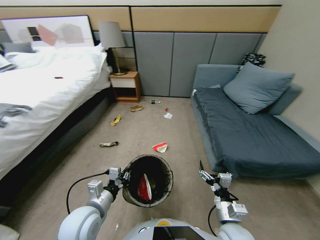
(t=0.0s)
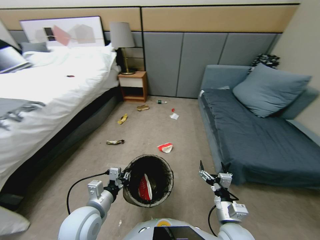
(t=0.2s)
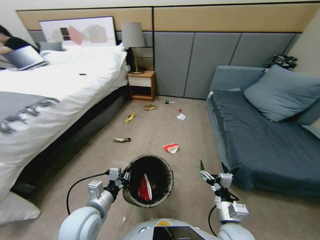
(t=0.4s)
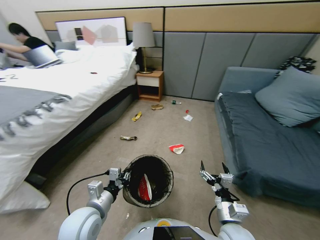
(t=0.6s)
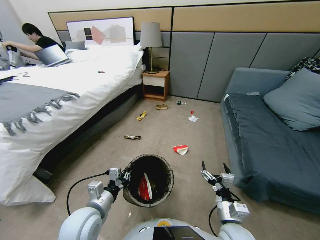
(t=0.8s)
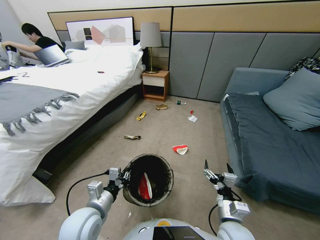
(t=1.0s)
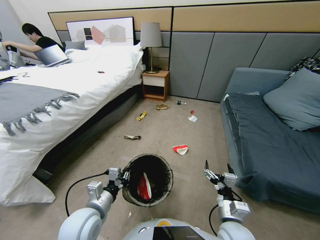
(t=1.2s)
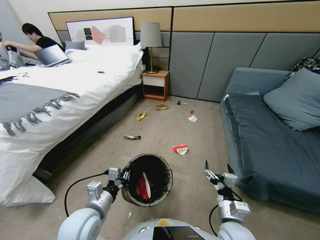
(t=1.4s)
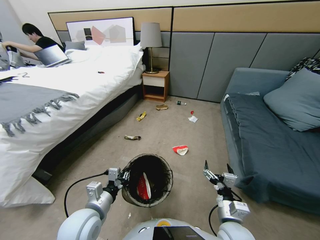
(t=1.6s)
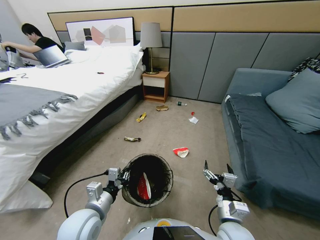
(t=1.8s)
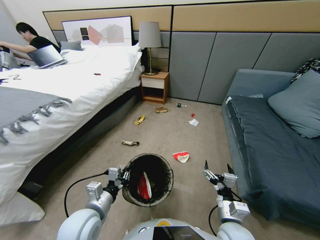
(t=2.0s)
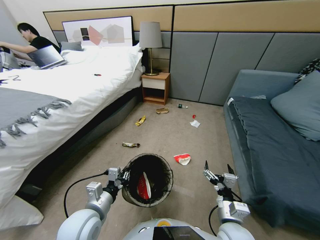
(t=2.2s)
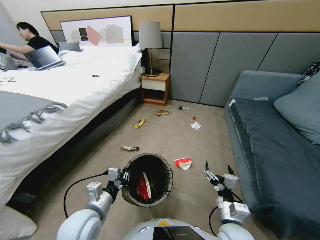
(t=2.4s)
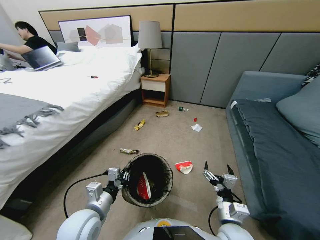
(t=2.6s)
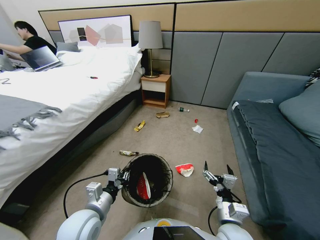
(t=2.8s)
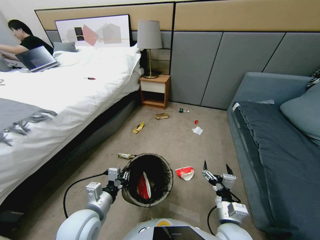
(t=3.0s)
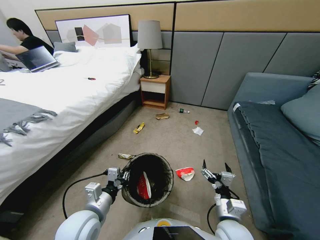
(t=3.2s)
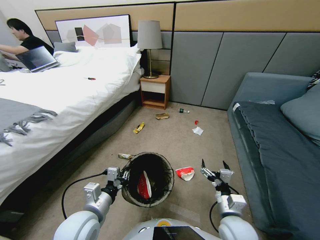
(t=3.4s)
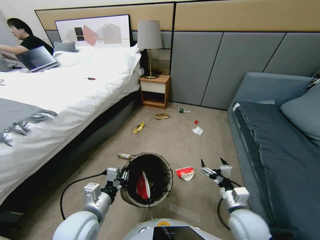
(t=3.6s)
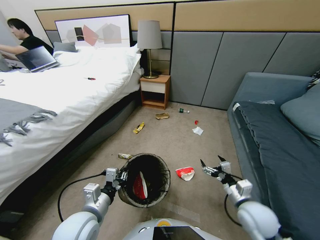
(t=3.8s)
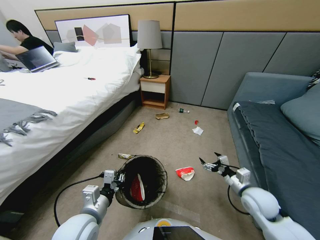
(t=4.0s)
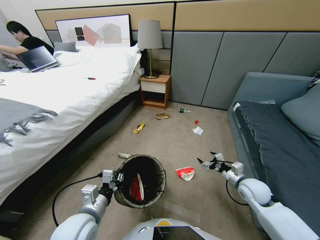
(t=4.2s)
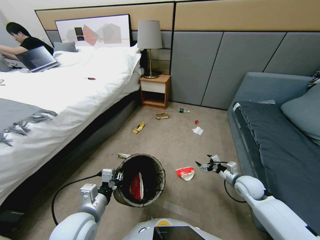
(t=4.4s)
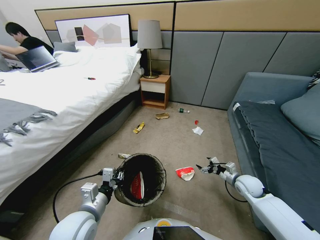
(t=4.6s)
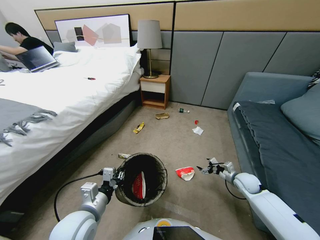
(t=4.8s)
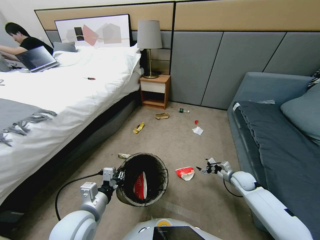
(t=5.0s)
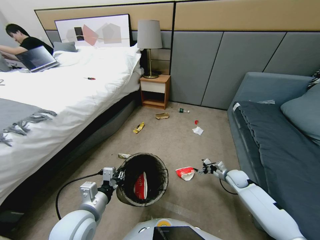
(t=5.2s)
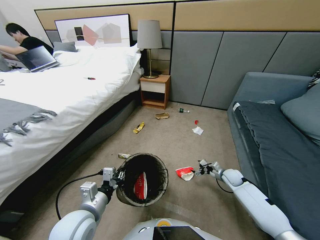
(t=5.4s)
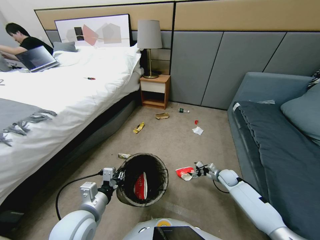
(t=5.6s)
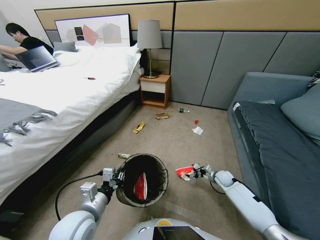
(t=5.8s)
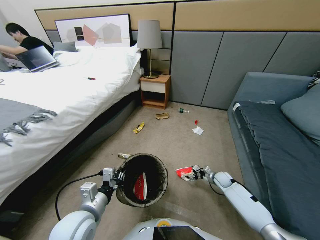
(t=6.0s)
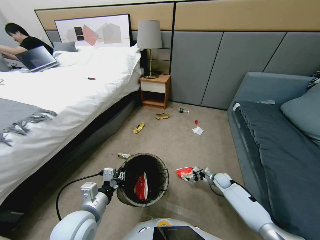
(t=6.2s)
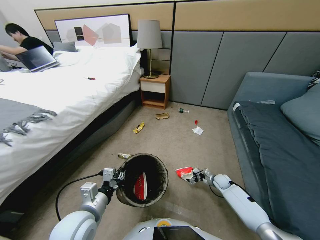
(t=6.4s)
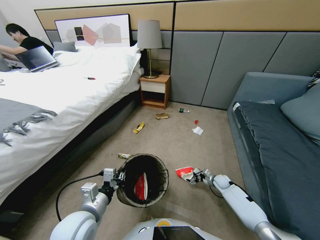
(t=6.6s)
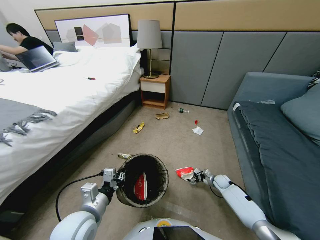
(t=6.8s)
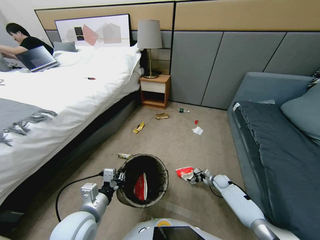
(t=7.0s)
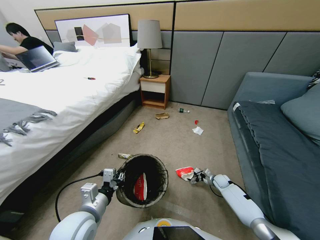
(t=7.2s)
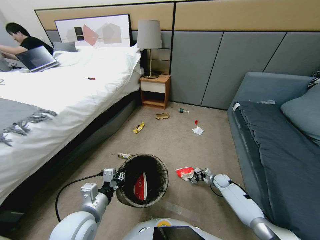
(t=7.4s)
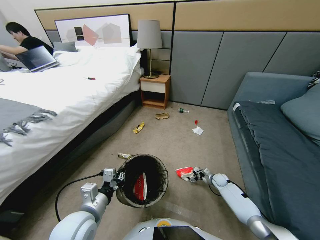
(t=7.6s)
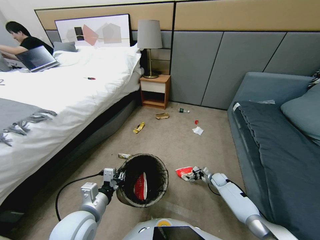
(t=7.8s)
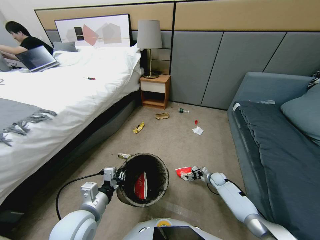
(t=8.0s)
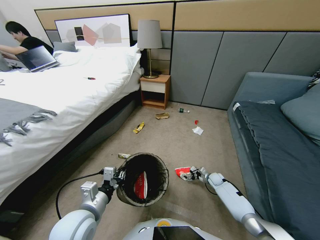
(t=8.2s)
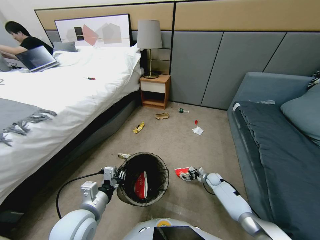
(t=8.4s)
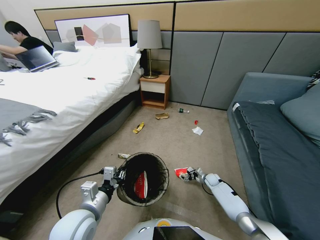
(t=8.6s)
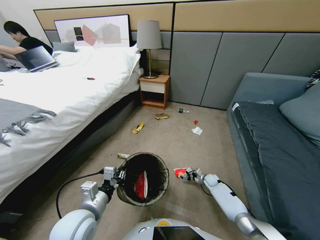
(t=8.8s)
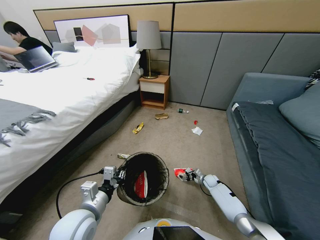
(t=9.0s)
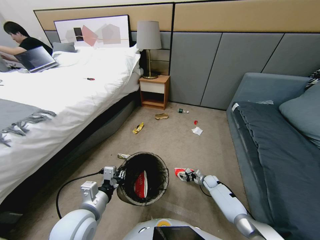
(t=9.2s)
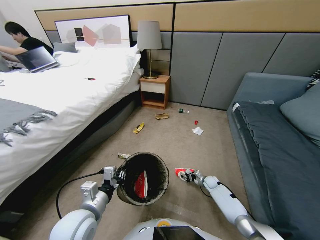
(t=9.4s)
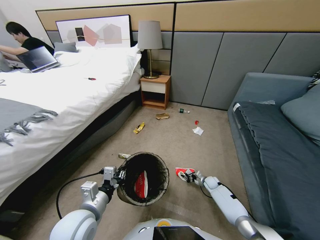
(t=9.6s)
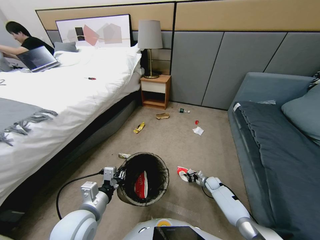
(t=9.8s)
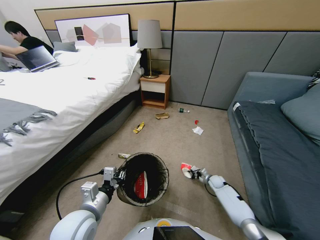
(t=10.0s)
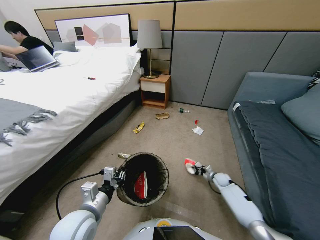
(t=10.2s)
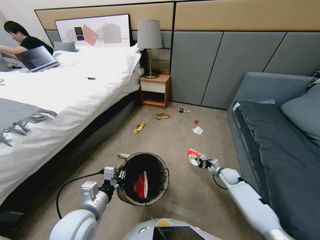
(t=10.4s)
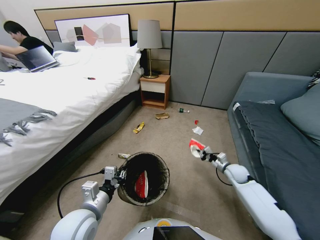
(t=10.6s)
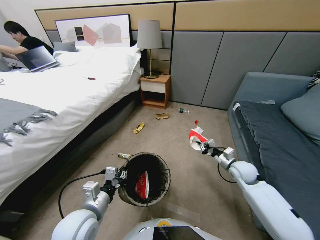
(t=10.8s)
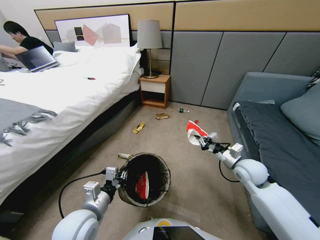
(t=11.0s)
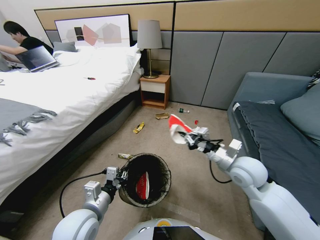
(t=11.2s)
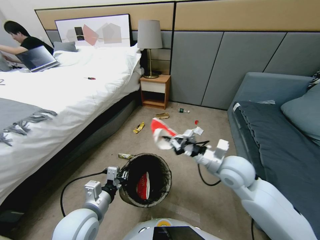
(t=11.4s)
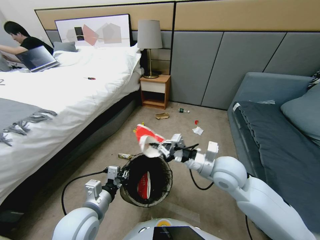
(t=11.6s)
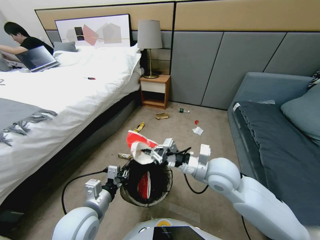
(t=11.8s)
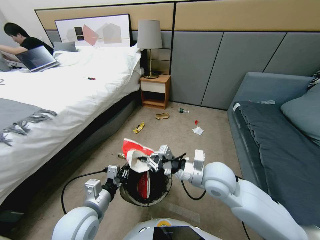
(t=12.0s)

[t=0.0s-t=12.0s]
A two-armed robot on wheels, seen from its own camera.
Task of the whole recording: Pick up the trash bin, then pick up the garbage from the floor and place it into the trash bin.
t=3.0s to t=4.4s: The right gripper shifts about 25 cm to the right and forward.
t=4.4s to t=6.0s: The right gripper heads downward and forward, covering roughly 15 cm.
t=6.0s to t=7.6s: The grippers make only small movements.
t=7.6s to t=9.0s: The right gripper moves some 5 cm, and closes its fingers.
t=9.0s to t=10.4s: The right gripper moves upward, roughly 20 cm, and closes its fingers.
t=10.4s to t=12.0s: The right gripper is displaced to the left, upward and backward by some 30 cm.

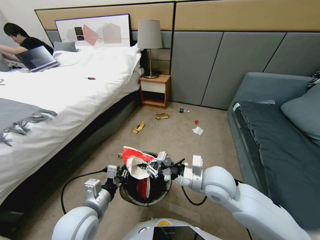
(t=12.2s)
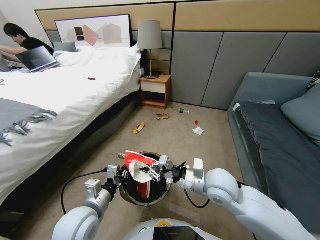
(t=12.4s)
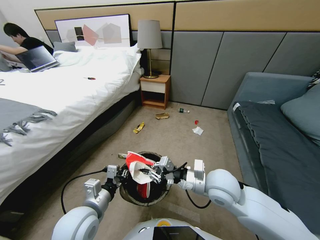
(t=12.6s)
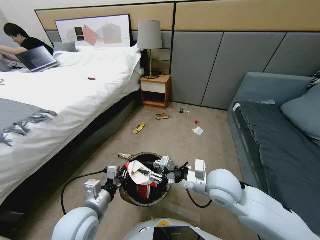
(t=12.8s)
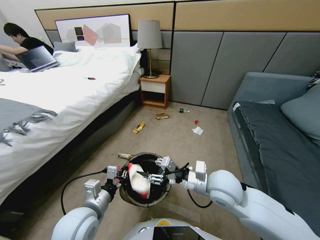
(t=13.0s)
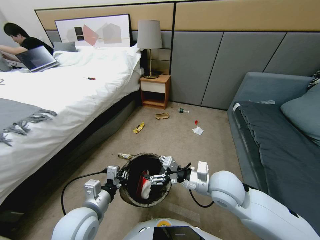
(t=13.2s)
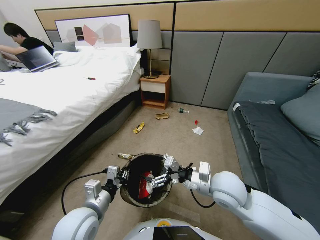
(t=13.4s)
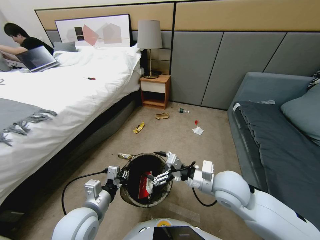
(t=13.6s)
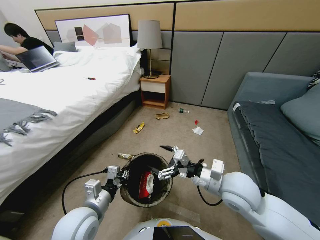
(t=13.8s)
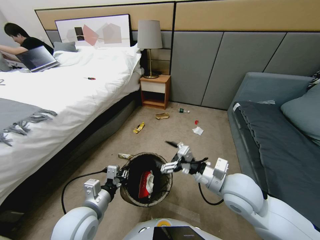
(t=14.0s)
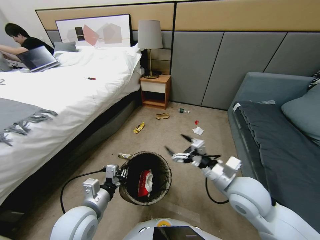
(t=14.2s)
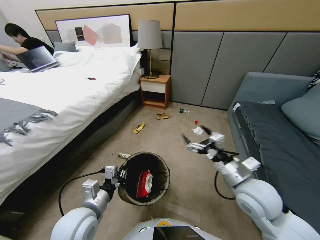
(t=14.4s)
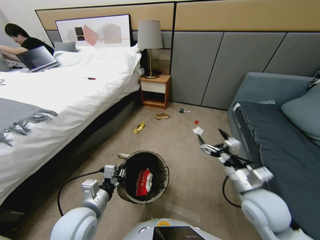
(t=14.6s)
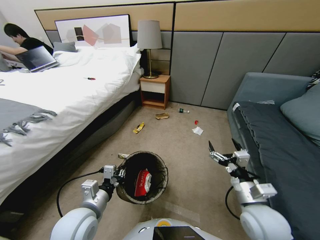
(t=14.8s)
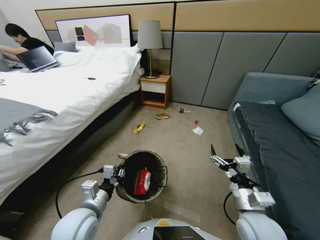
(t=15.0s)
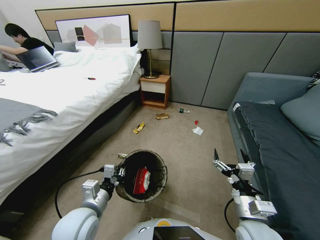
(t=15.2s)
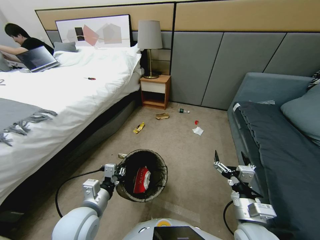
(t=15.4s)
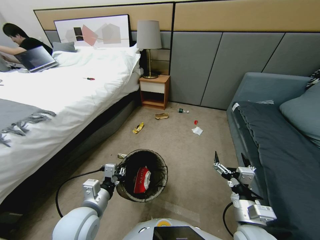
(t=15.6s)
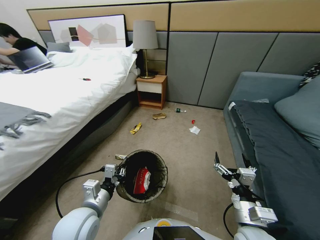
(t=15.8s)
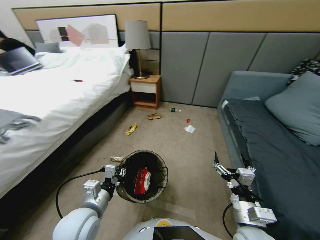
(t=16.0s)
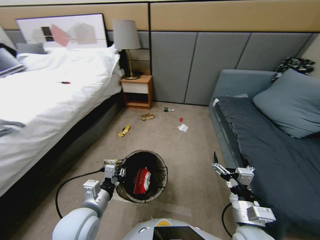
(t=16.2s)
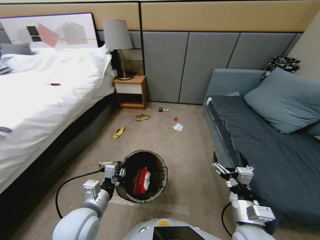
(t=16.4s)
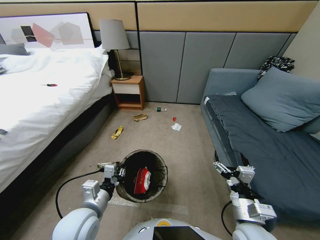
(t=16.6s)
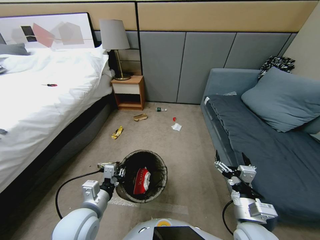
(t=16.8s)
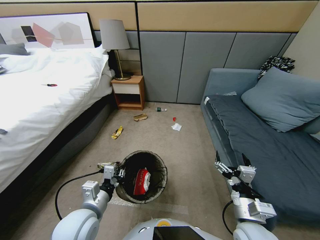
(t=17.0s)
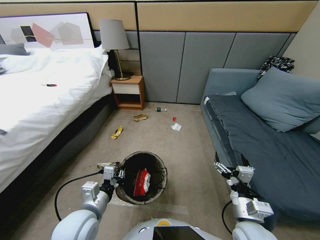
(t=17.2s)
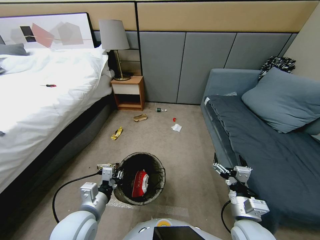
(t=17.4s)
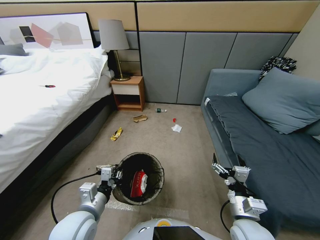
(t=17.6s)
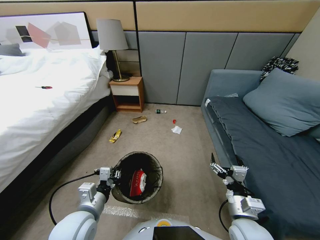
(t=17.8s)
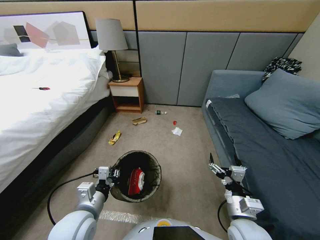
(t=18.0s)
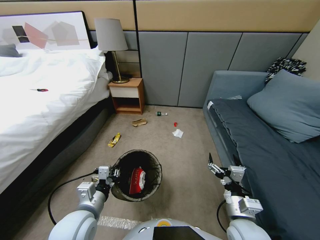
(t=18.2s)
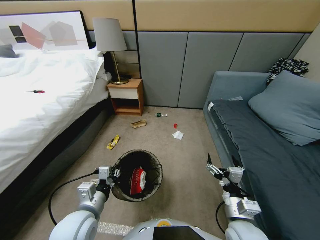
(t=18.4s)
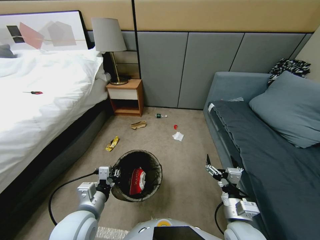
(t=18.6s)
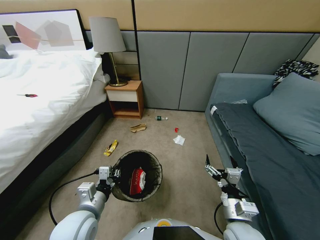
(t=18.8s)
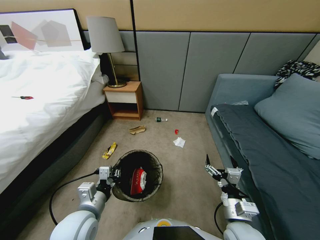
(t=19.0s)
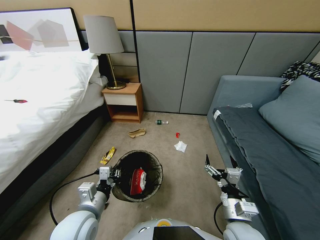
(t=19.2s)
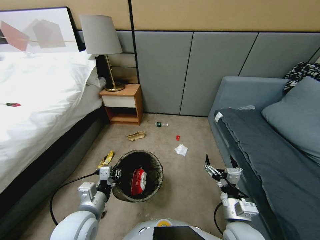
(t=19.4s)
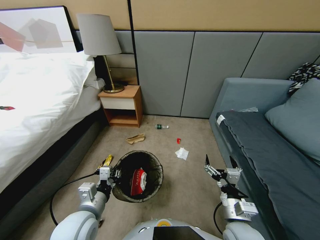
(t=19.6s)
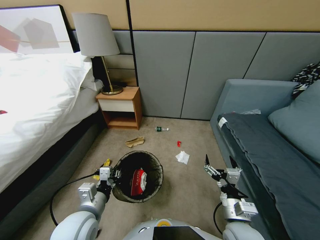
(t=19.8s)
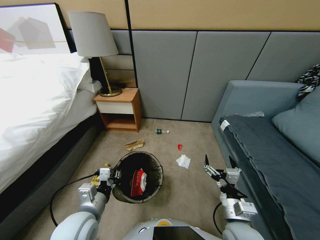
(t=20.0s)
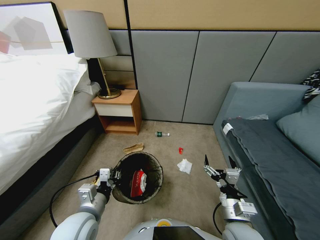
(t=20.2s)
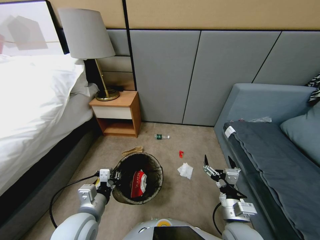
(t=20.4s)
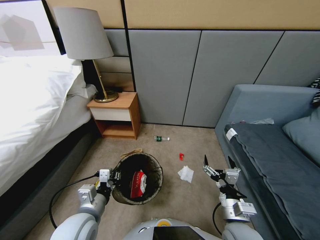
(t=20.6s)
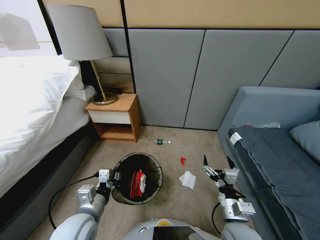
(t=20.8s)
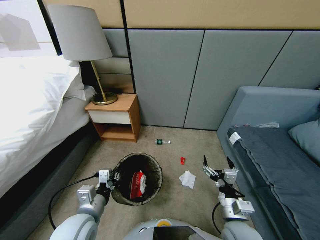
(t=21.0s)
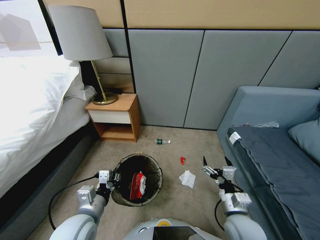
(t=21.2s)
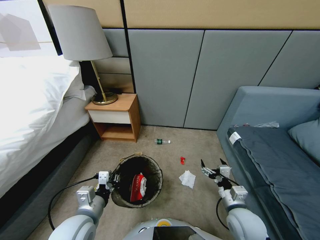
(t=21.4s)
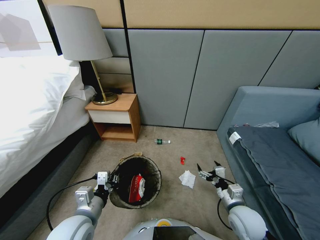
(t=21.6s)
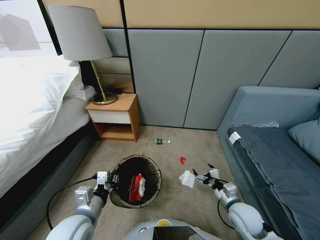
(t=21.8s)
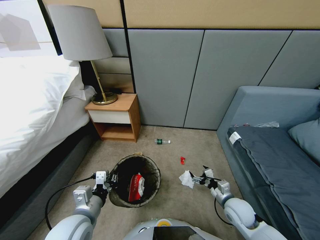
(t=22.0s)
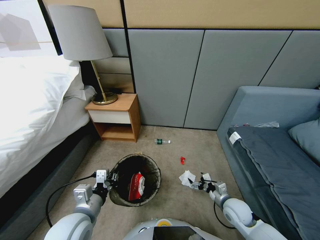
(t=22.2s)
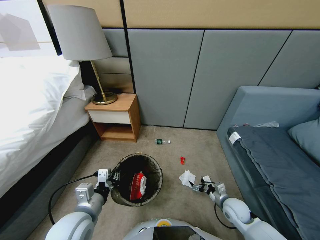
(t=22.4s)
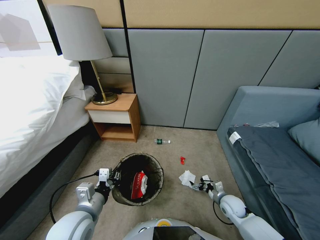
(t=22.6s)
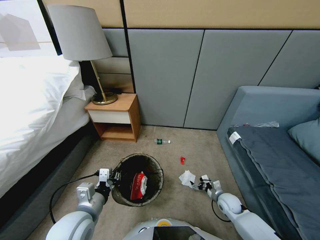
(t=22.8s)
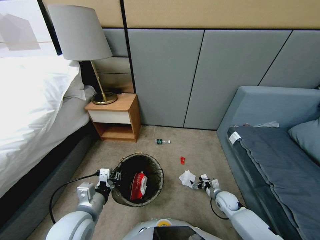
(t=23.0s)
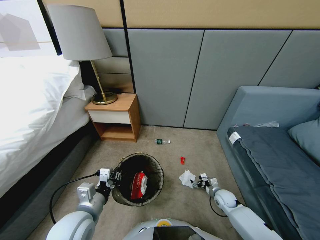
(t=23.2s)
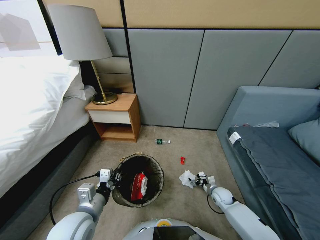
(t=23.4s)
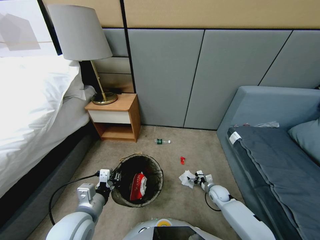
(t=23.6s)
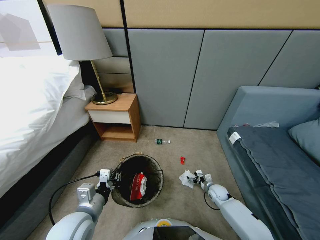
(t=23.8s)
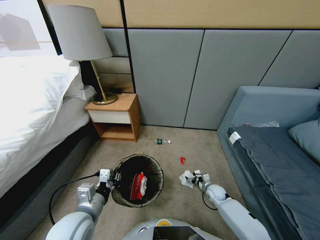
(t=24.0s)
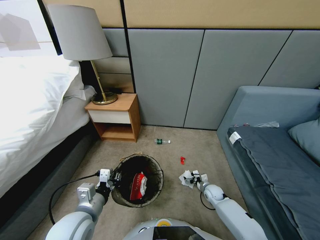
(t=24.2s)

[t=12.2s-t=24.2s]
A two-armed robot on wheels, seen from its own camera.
Task of the whole recording: Pick up the trash bin, then pick up the garbage from the floor and place it into the trash bin.
t=12.2s to t=13.8s: The right gripper changes place by some 5 cm, and opens up.
t=13.8s to t=15.2s: The right gripper is displaced backward and downward by about 15 cm.
t=19.8s to t=21.2s: The right gripper ends up about 5 cm from where it was.
t=21.2s to t=22.6s: The right gripper shifts roughly 20 cm downward, forward and to the right.
t=22.6s to t=24.2s: The right gripper shifts about 10 cm forward and downward.
